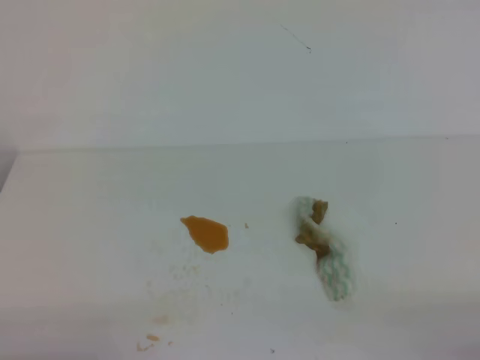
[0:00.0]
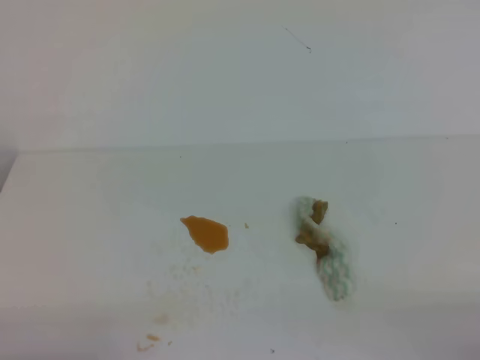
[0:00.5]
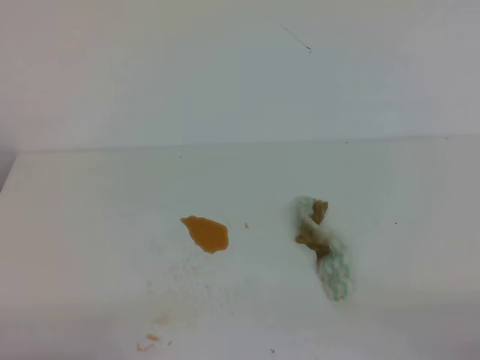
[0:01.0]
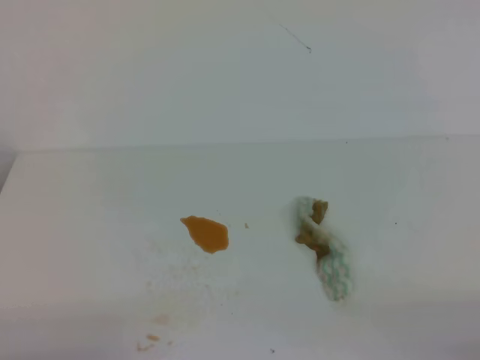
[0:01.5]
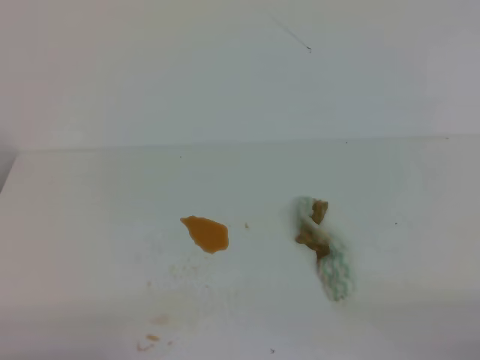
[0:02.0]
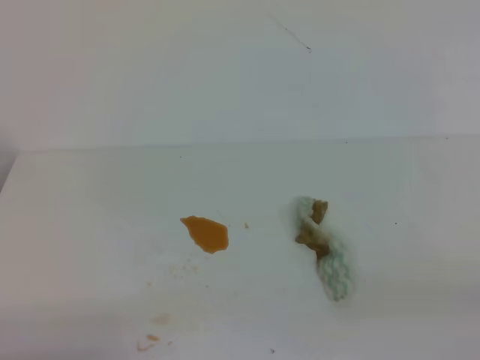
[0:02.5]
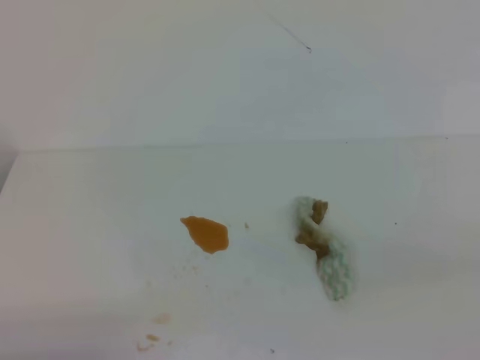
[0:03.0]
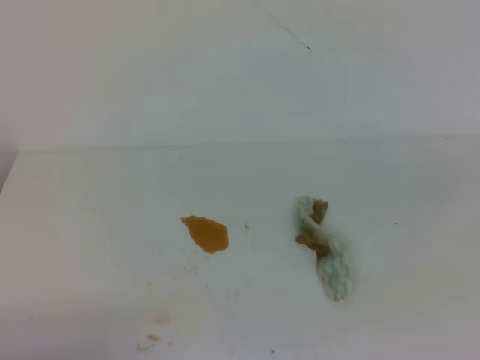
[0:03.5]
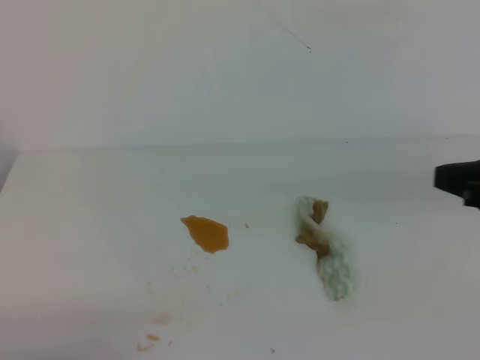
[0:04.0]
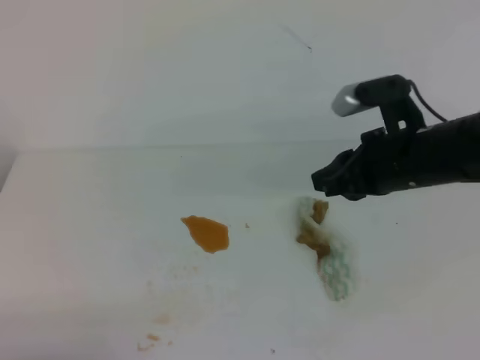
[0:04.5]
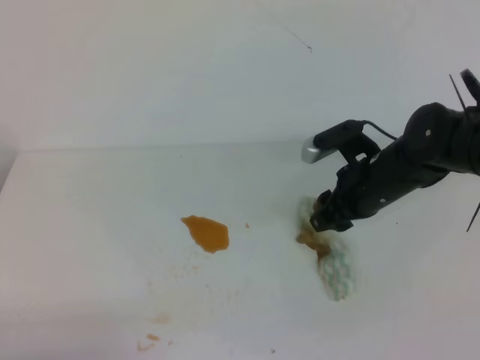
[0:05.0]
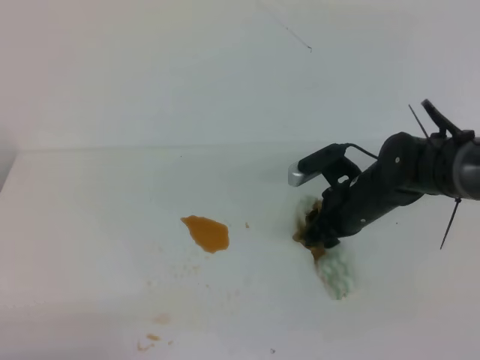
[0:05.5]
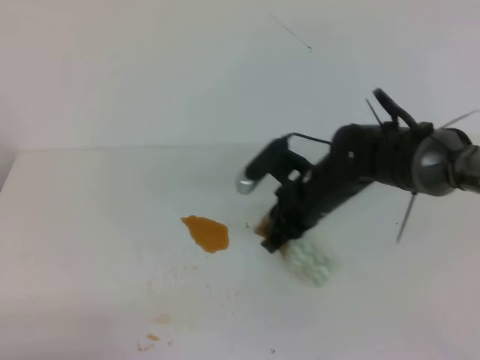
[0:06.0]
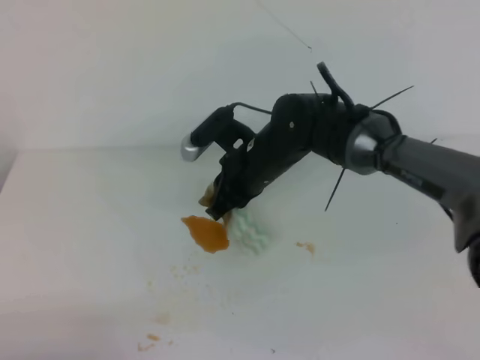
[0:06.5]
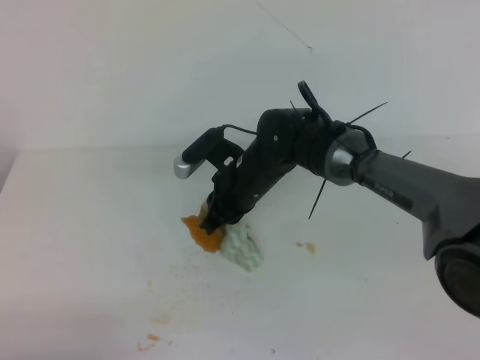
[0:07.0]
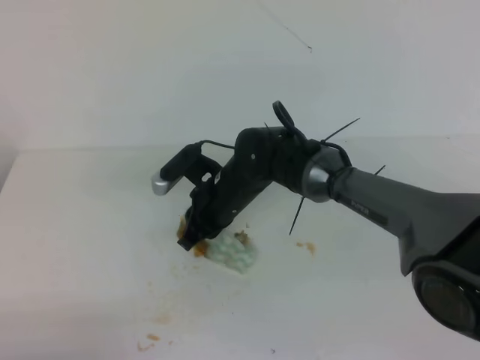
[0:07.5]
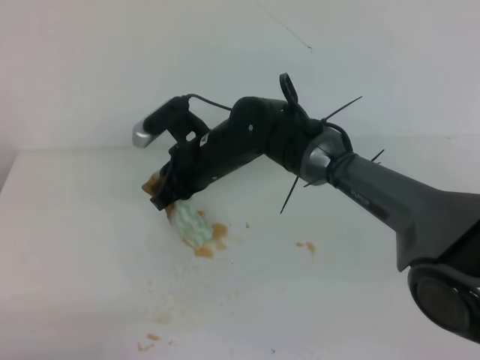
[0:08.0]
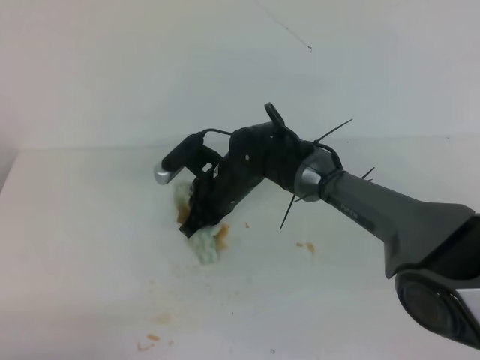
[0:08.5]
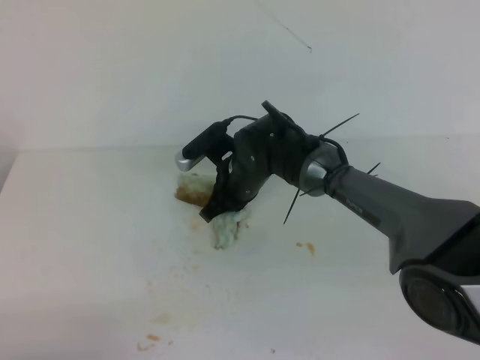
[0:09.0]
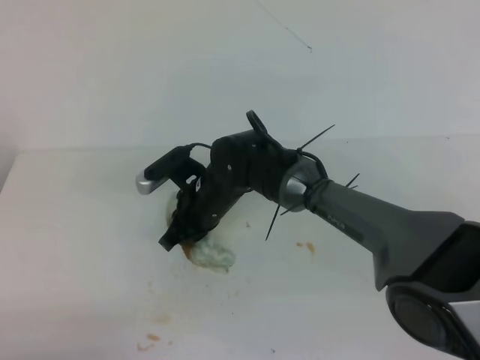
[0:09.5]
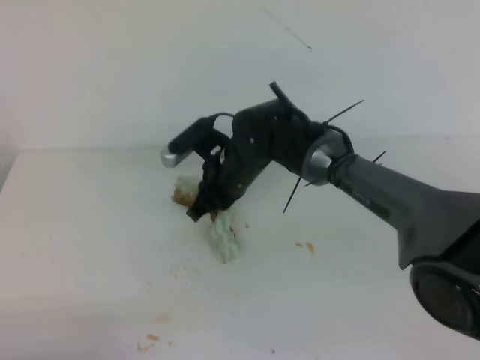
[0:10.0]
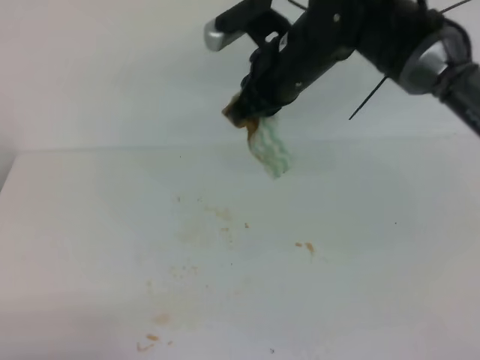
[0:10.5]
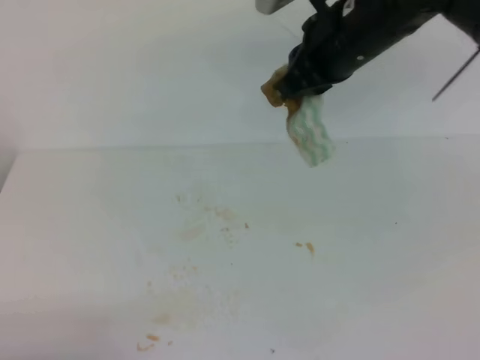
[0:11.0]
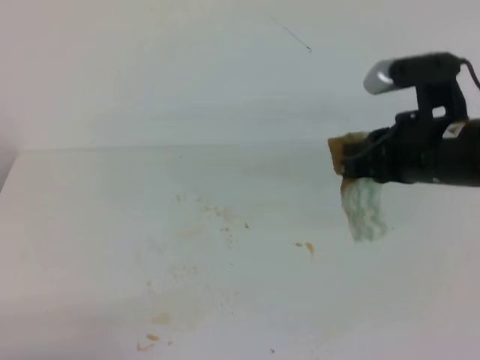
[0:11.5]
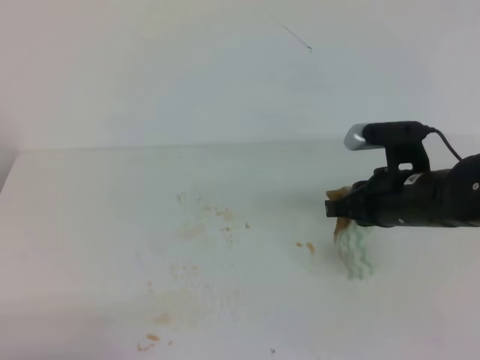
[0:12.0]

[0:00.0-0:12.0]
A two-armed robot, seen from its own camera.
0:00.0 to 0:02.0: Both grippers stay put.
0:02.0 to 0:04.0: The right gripper travels forward and upward by approximately 25 cm.
0:04.0 to 0:06.0: The right gripper shifts some 25 cm to the left, forward and downward, and opens, then closes again.
0:06.0 to 0:08.0: The right gripper shifts approximately 15 cm to the left.
0:10.0 to 0:12.0: The right gripper shifts approximately 20 cm to the right and backward.

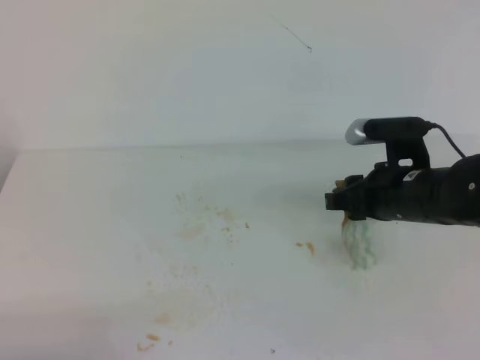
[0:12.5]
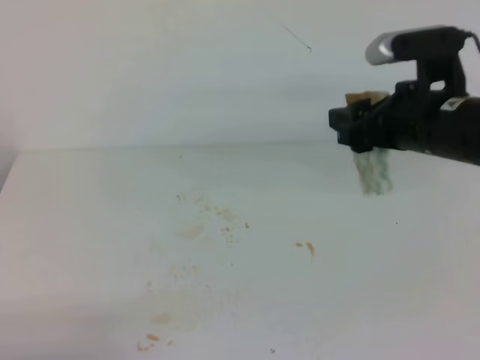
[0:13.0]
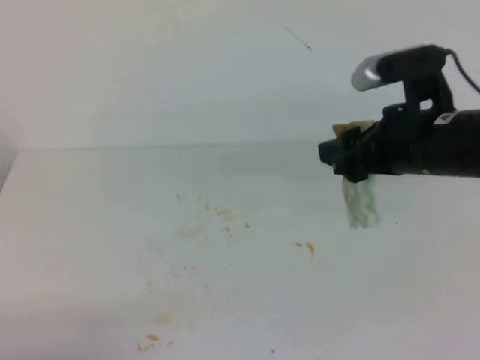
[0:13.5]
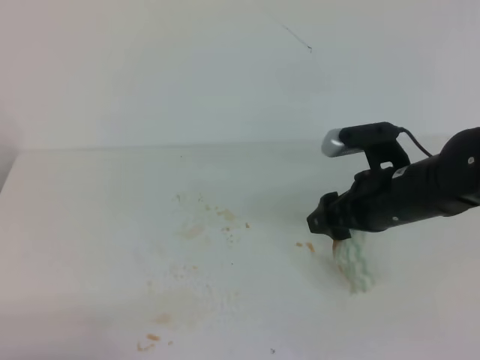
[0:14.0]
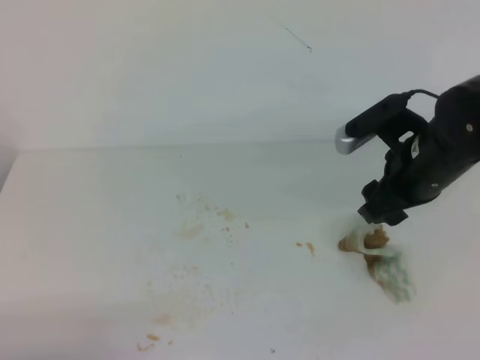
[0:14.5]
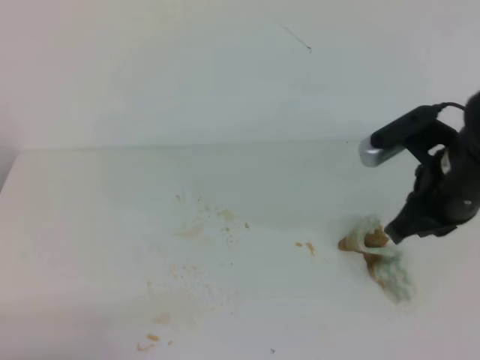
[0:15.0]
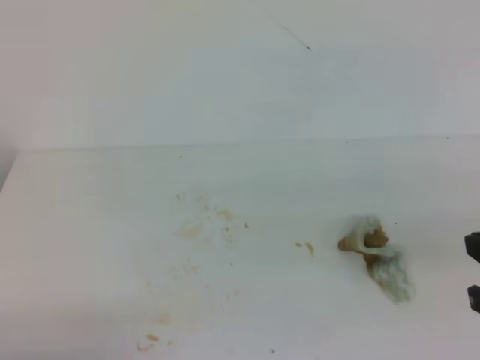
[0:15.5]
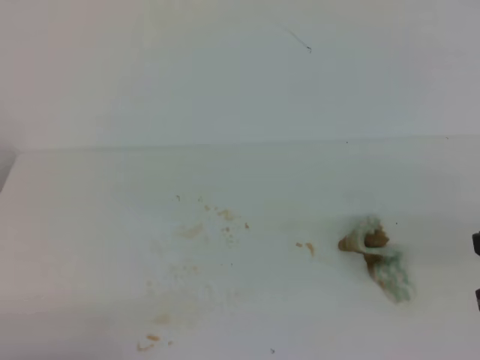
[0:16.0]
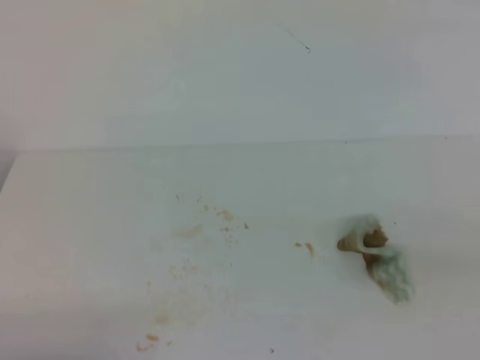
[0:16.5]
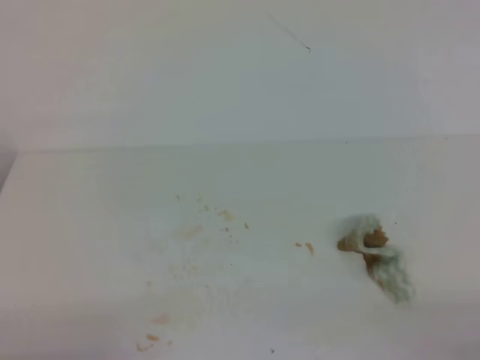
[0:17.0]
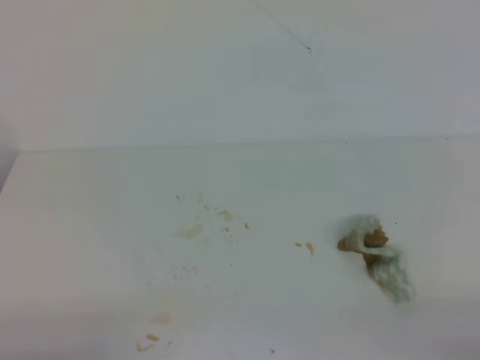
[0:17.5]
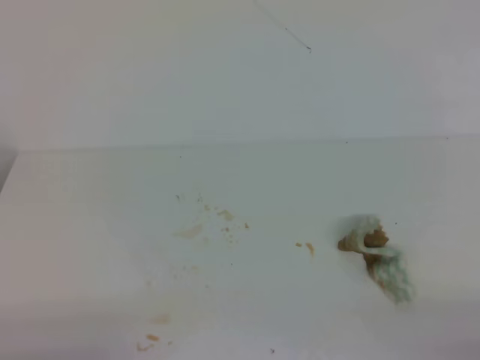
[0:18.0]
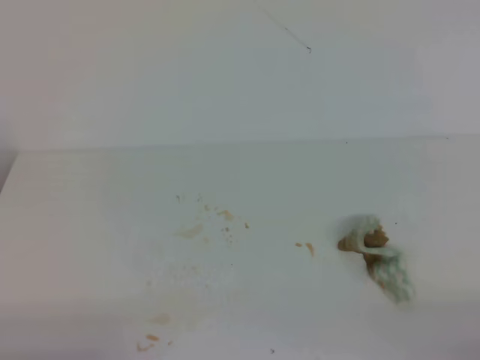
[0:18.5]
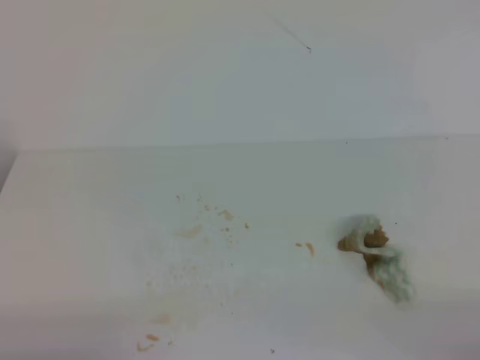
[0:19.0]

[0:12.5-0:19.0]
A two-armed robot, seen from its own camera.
0:14.5 to 0:17.0: The right gripper is displaced backward and to the right by about 30 cm, and closes up.
0:17.0 to 0:19.0: Neither gripper changes place.
